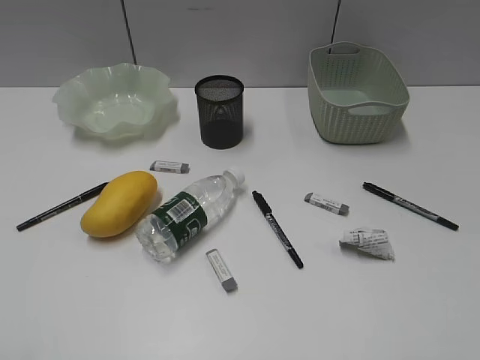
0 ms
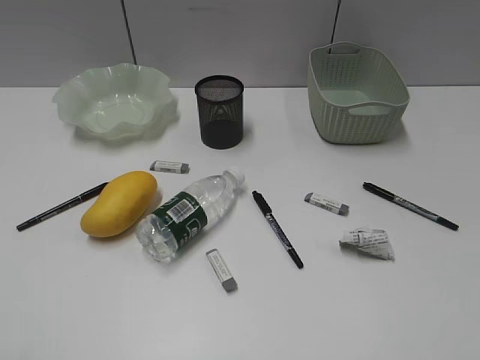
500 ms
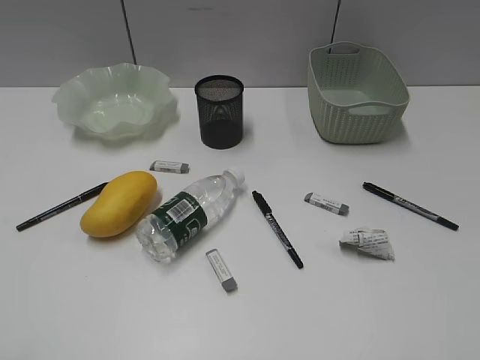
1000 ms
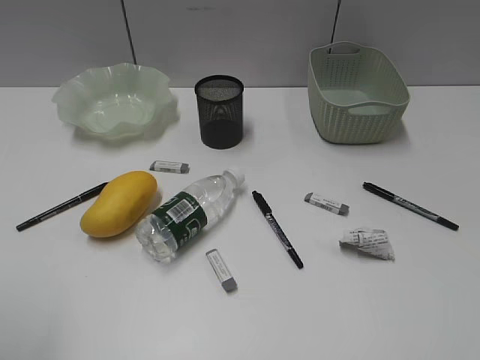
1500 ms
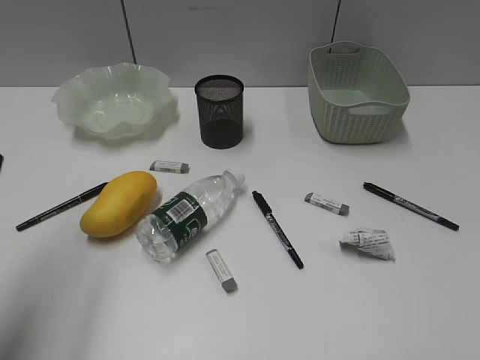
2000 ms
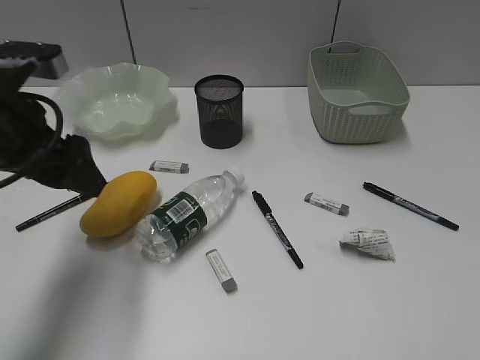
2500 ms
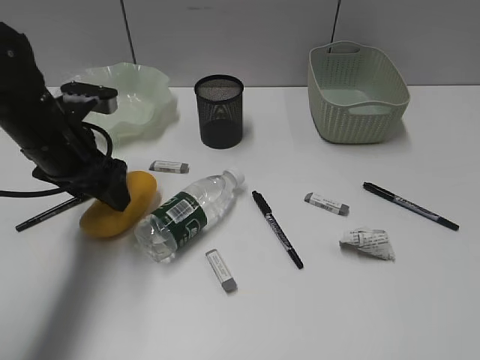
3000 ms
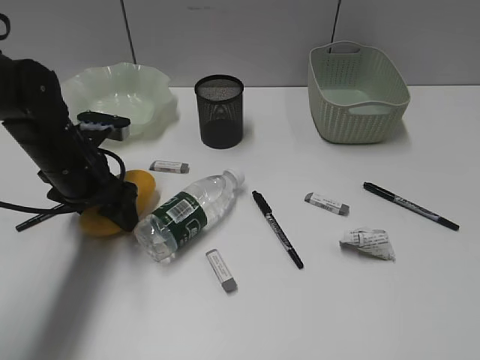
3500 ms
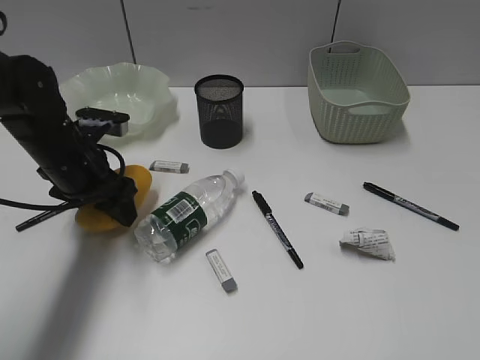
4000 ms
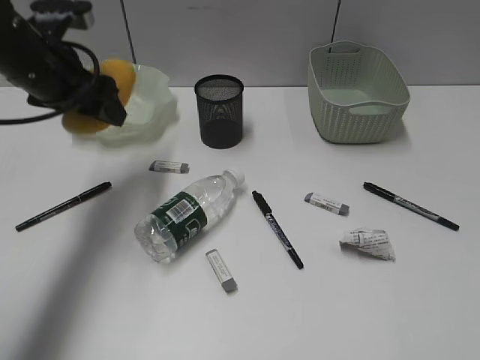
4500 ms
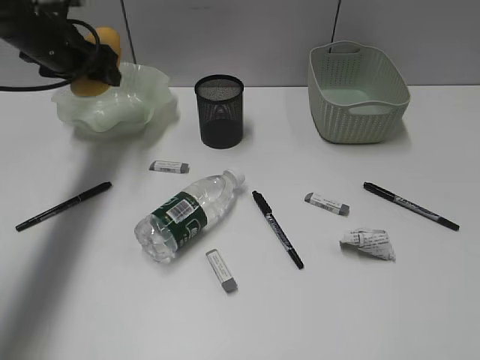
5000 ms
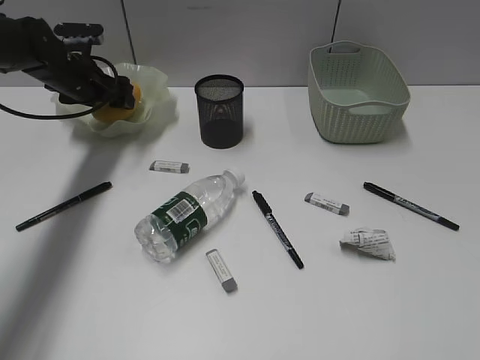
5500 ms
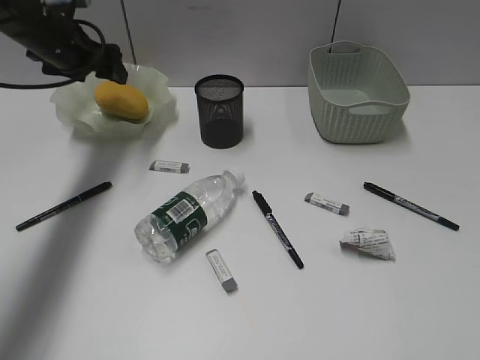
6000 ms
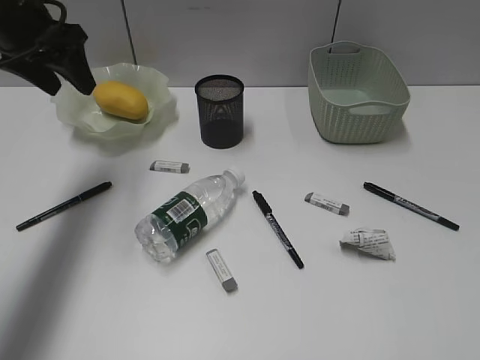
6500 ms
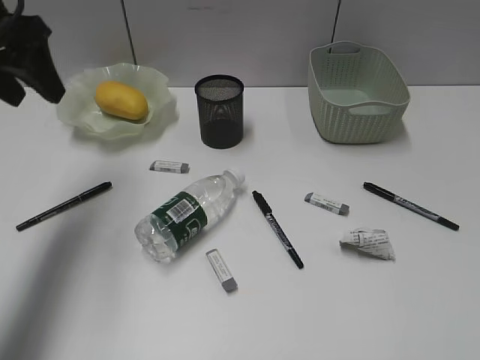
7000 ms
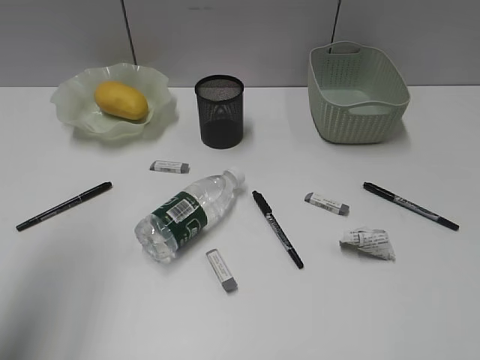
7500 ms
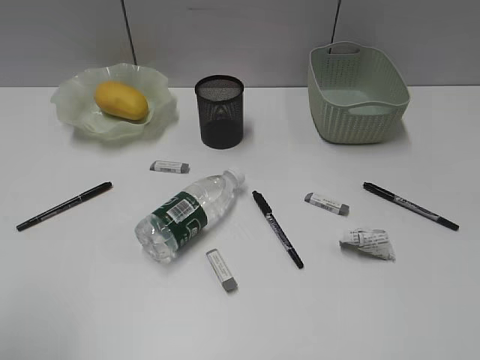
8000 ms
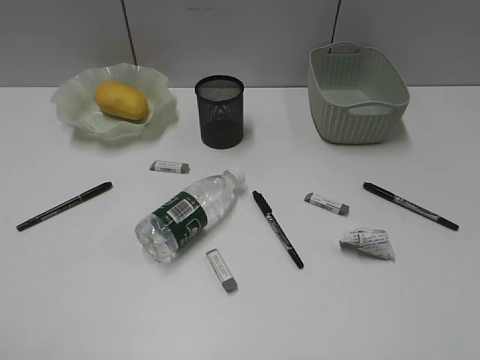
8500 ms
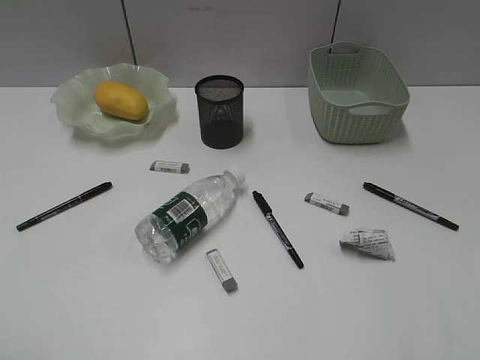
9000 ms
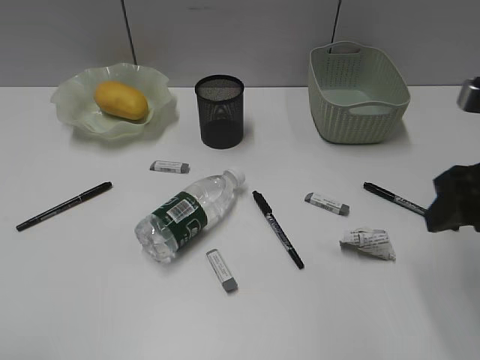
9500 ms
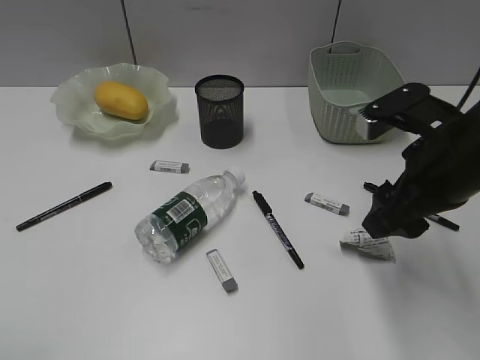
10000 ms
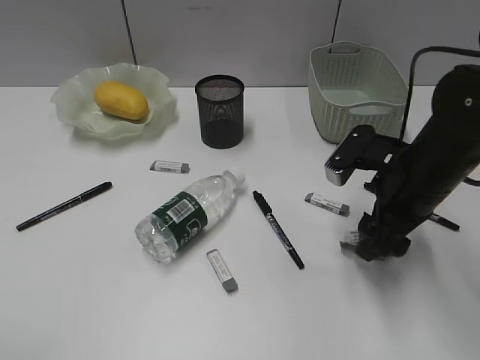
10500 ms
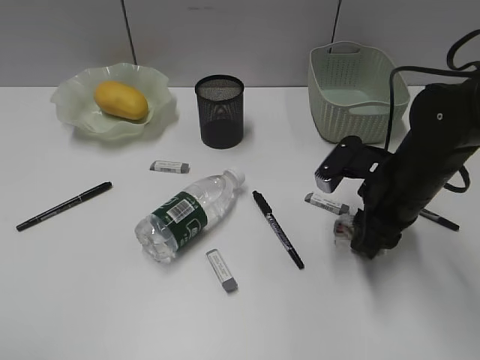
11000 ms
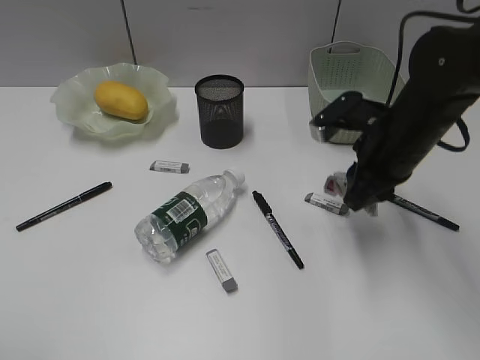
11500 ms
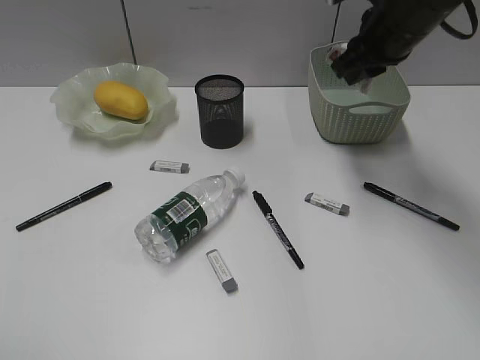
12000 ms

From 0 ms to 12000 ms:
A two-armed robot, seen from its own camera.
Step, from 1000 ms to 3500 ms: Grasp the mango with left gripper.
Step, from 4000 ms to 6000 ms: Place the mango in the plate with left gripper.
Step, from 6500 ms to 11000 ms: Grasp the waste paper with right gripper.
From 2000 ms to 4000 ms: The left gripper travels downward, forward and to the right by approximately 20 cm.
From 4000 ms to 6000 ms: The left gripper is displaced forward and upward by about 15 cm.
From 6000 ms to 8000 ms: The left gripper shifts roughly 40 cm backward, and closes up.
From 8000 ms to 10000 ms: The right gripper heads forward and to the left, covering some 30 cm.
From 10000 ms to 12000 ms: The right gripper shifts approximately 15 cm forward, and closes.

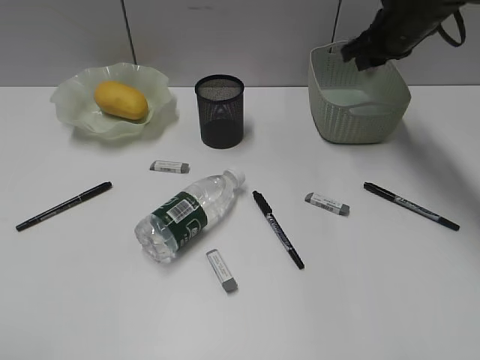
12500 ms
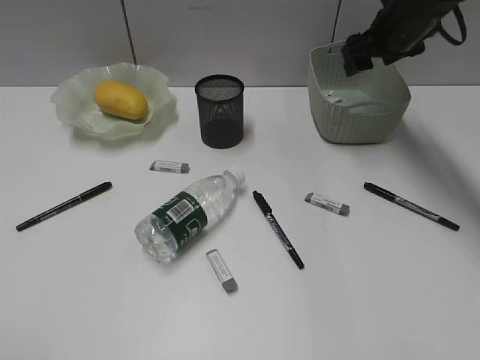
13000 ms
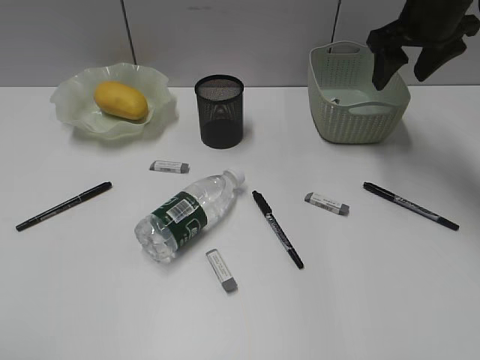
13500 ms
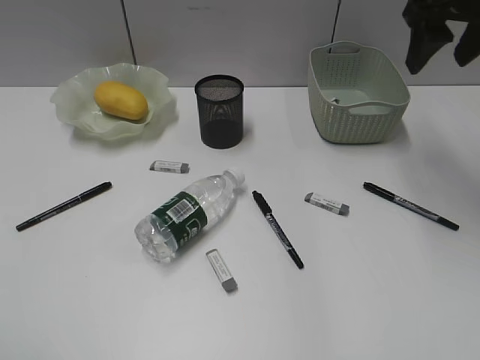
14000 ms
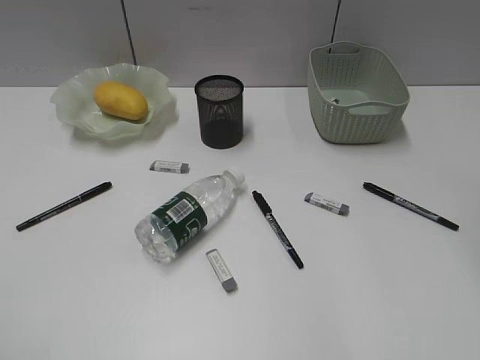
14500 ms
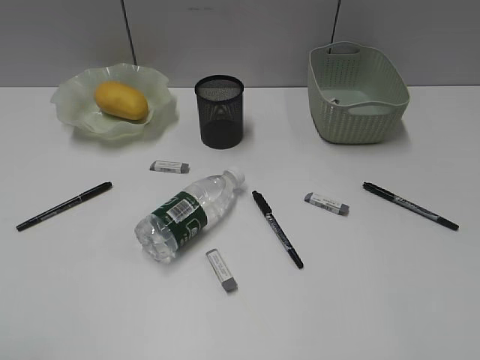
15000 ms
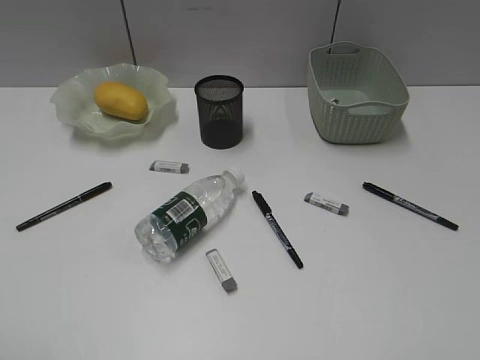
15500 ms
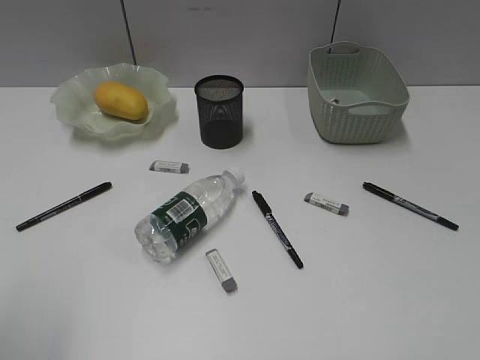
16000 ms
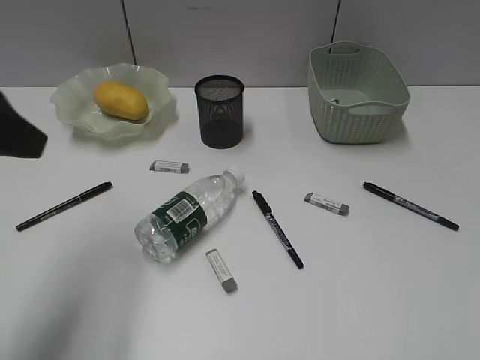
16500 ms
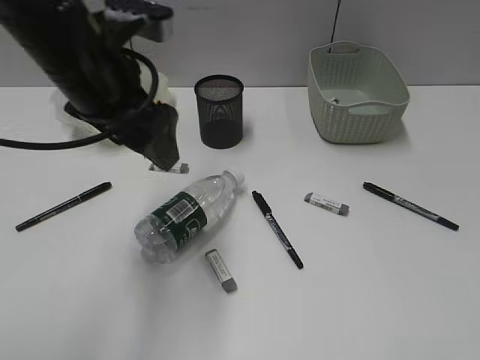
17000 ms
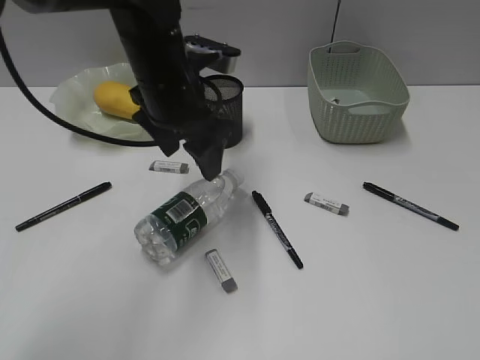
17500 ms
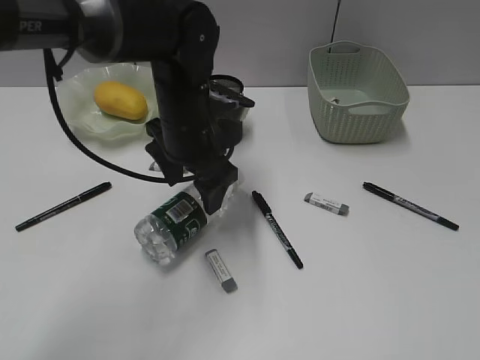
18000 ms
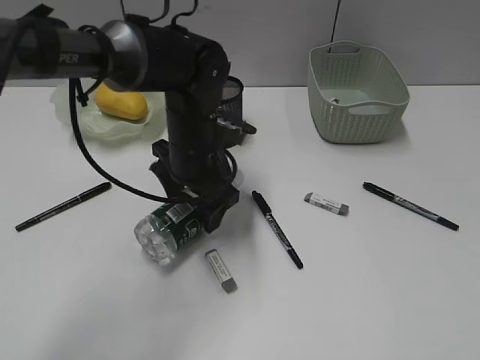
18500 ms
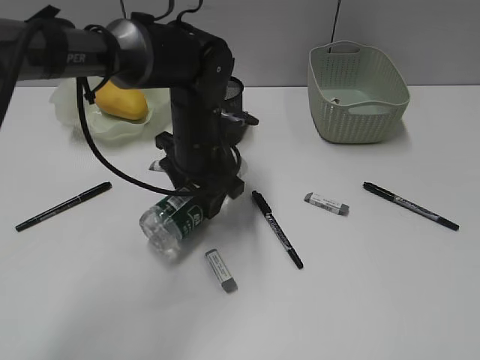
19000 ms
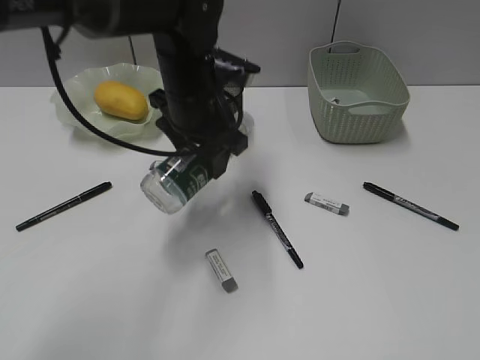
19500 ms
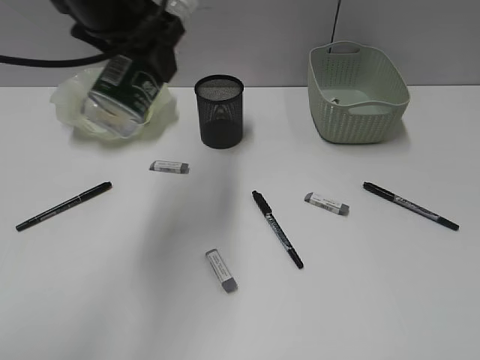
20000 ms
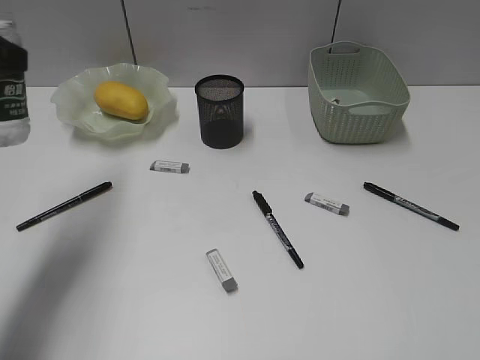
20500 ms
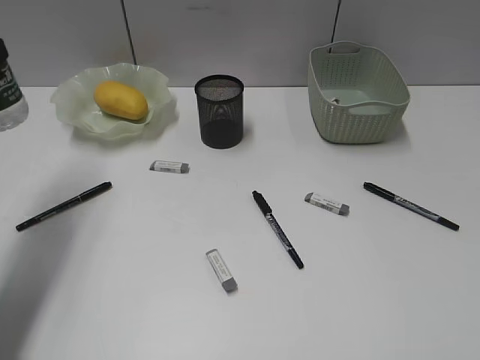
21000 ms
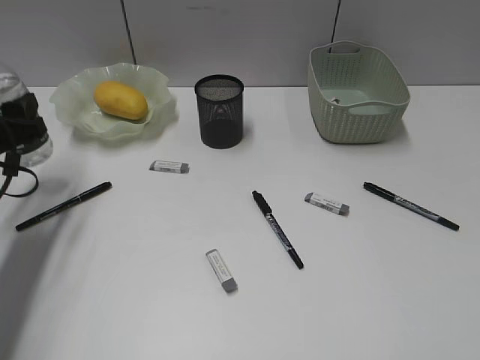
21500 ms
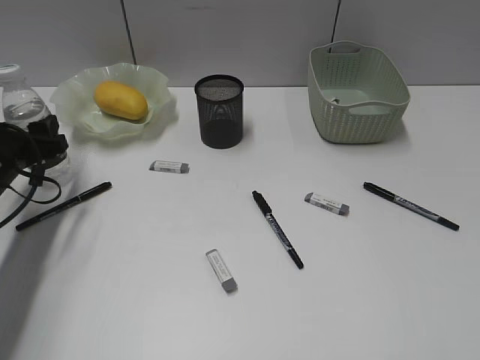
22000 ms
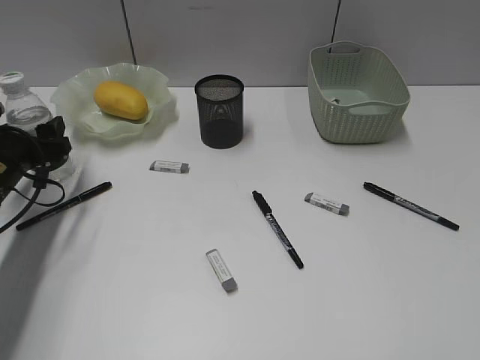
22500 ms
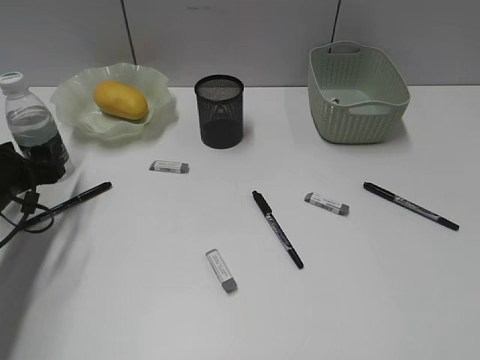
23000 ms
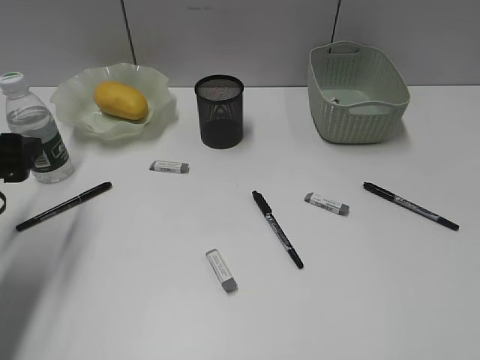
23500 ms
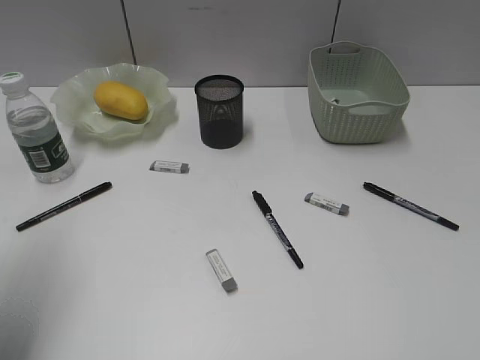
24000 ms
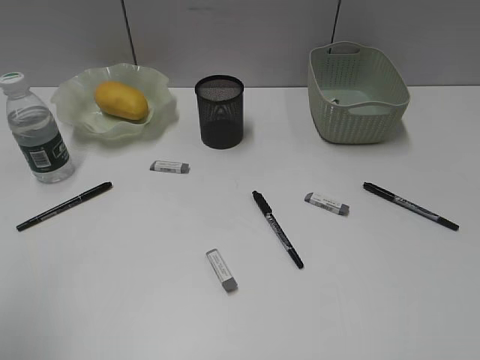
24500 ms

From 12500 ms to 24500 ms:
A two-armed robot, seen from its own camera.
Step, from 13000 ms to 18500 ms: Grasp the bottle with left gripper.
Step, from 19000 ms to 23000 ms: Stand the bottle with left gripper.
From 12500 ms to 14500 ms: The right gripper heads backward and upward, covering about 35 cm, and opens up.
From 14500 ms to 16500 ms: The left gripper goes approximately 25 cm forward and to the right.
From 16500 ms to 18500 ms: The left gripper goes approximately 30 cm downward, to the right and forward.
From 18500 ms to 20500 ms: The left gripper heads to the left, upward and backward, covering approximately 30 cm.
From 20500 ms to 22500 ms: The left gripper moves downward and forward, roughly 20 cm.
From 22500 ms to 24500 ms: The left gripper shifts some 35 cm backward and upward.

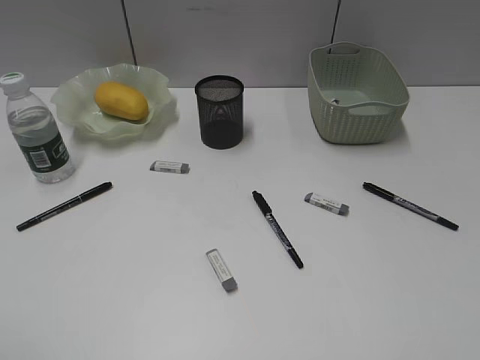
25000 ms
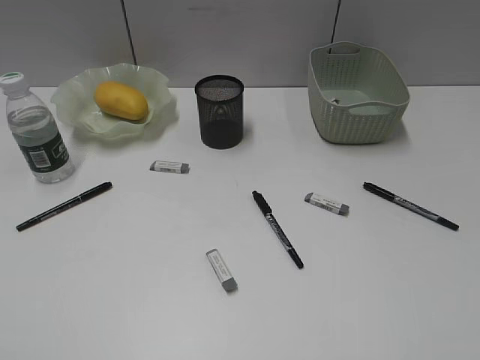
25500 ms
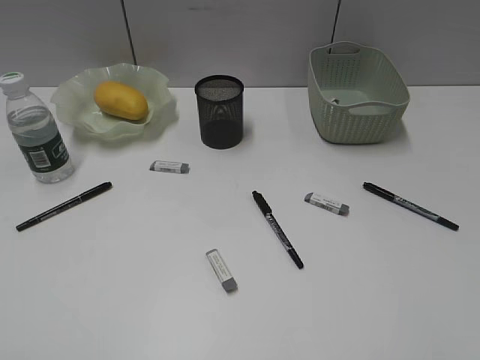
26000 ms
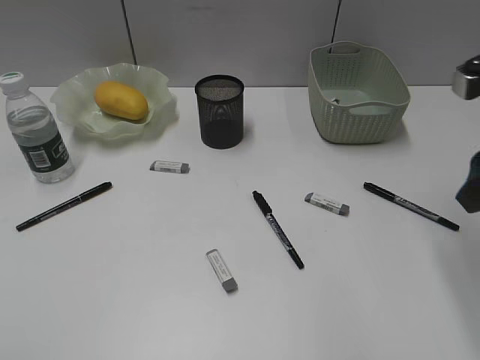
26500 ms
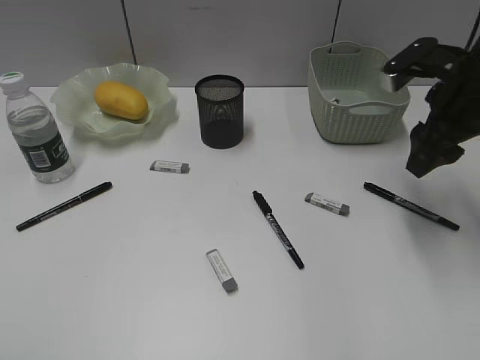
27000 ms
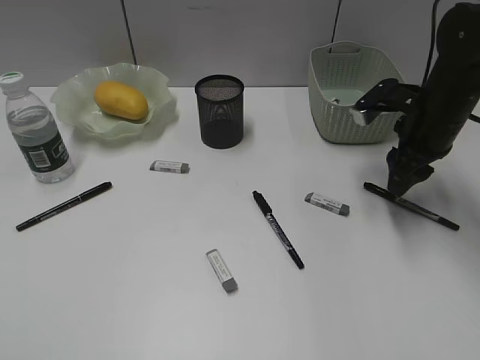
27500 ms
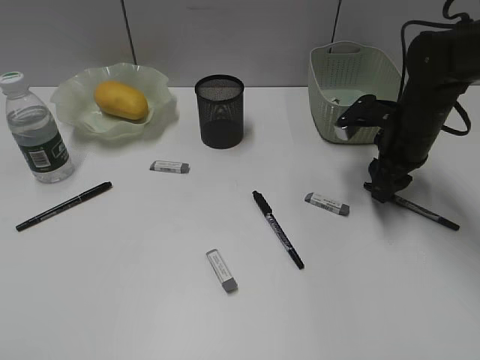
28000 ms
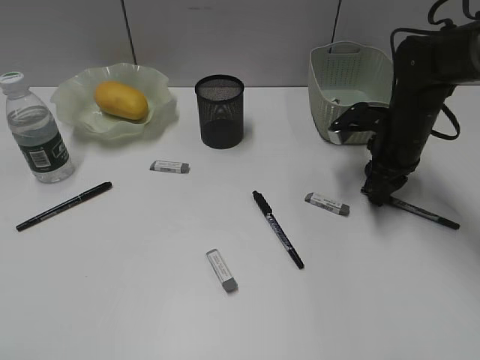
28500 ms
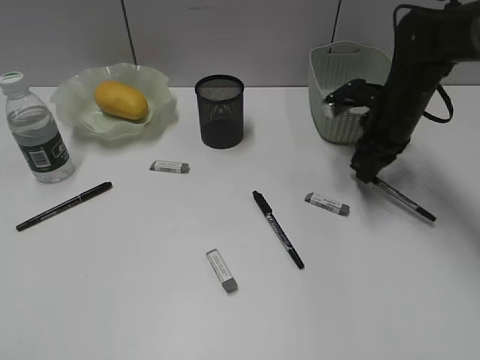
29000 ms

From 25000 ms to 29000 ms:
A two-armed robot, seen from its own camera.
Step, from 25000 ms to 28500 ms: Grasp the black pen with right gripper.
From 25000 ms to 27000 ms: The right gripper shifts approximately 35 cm forward.
From 27000 ms to 29000 ms: The right gripper heads forward and downward, covering roughly 10 cm, and closes its fingers.
